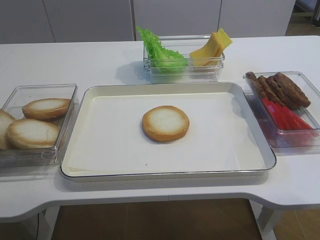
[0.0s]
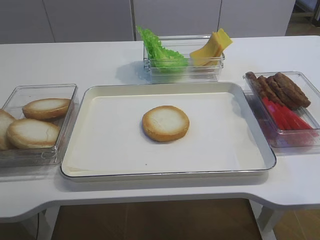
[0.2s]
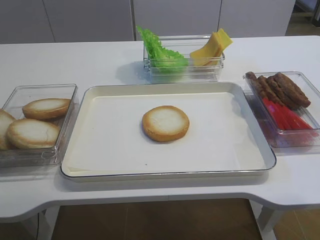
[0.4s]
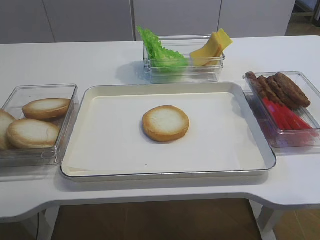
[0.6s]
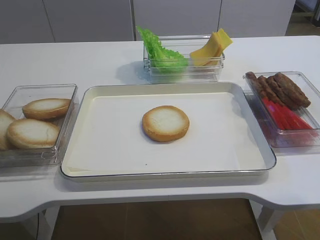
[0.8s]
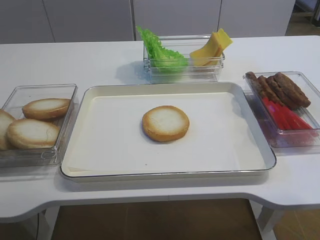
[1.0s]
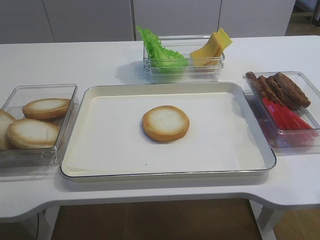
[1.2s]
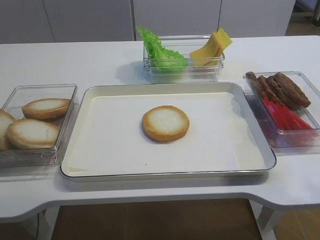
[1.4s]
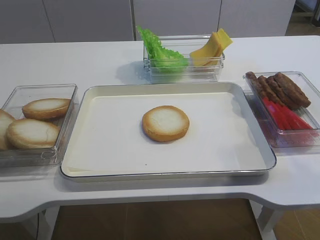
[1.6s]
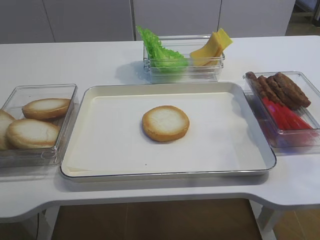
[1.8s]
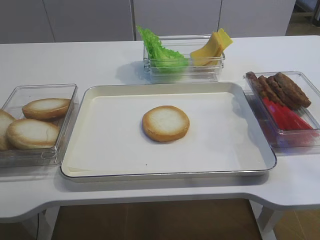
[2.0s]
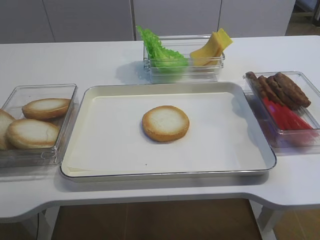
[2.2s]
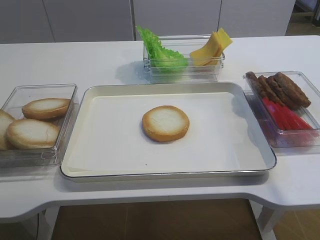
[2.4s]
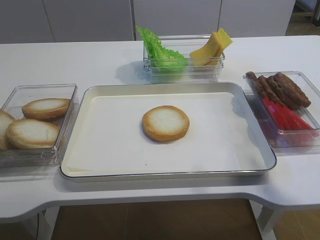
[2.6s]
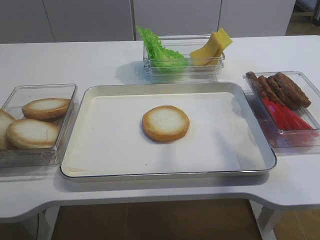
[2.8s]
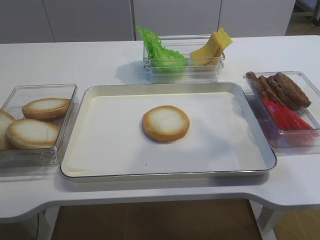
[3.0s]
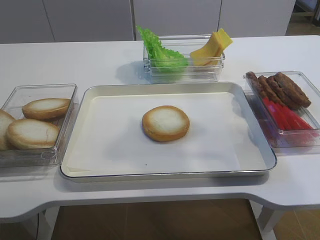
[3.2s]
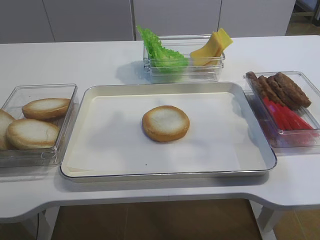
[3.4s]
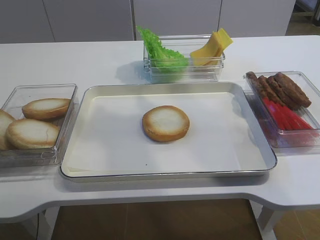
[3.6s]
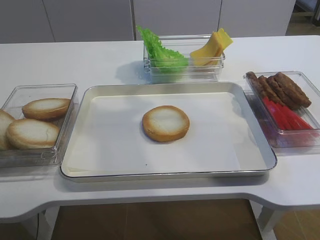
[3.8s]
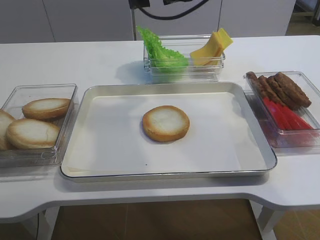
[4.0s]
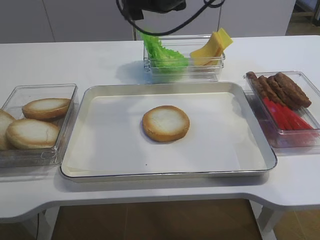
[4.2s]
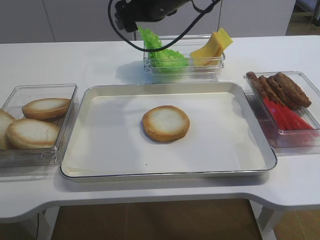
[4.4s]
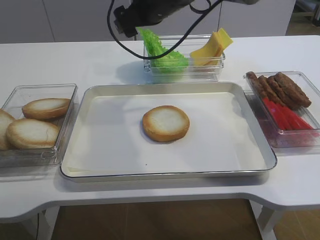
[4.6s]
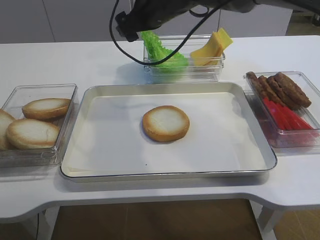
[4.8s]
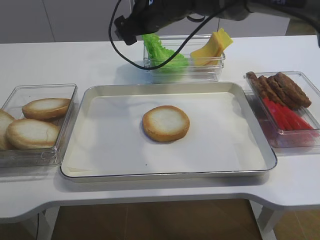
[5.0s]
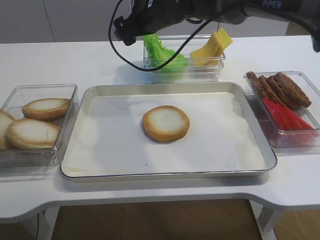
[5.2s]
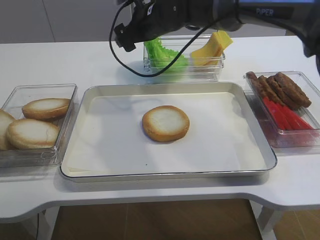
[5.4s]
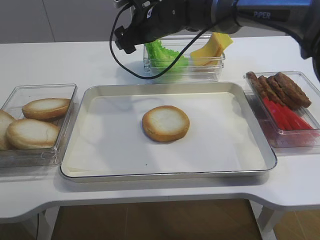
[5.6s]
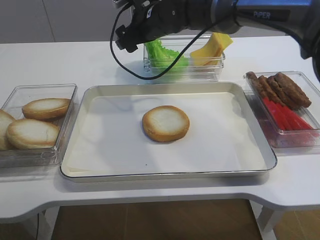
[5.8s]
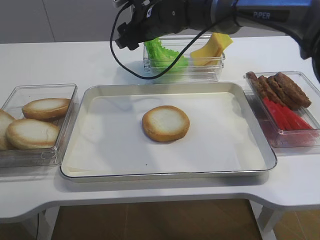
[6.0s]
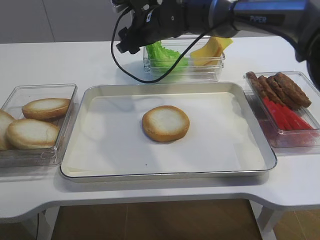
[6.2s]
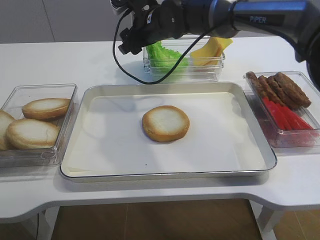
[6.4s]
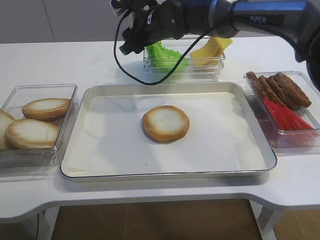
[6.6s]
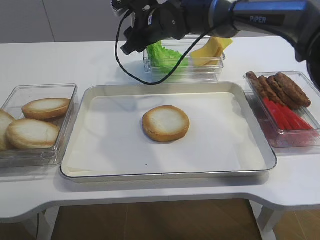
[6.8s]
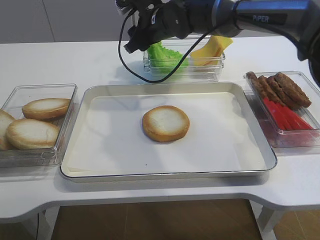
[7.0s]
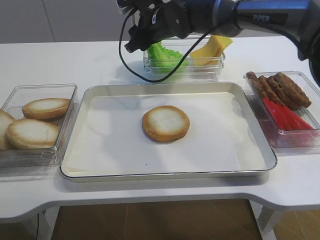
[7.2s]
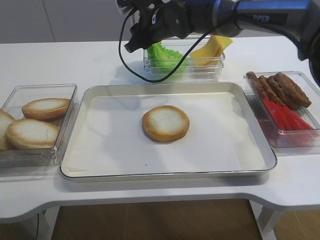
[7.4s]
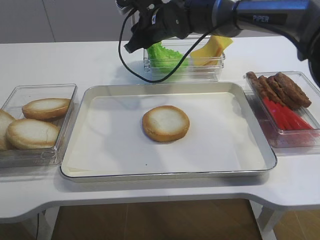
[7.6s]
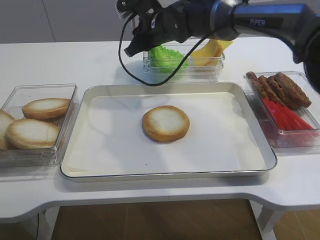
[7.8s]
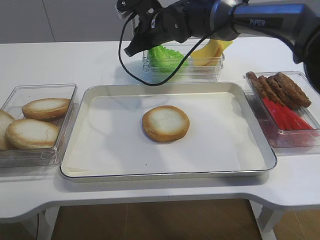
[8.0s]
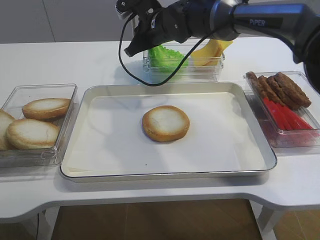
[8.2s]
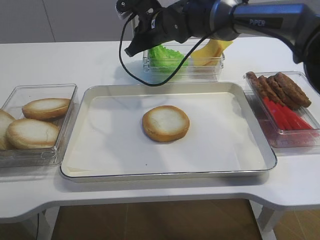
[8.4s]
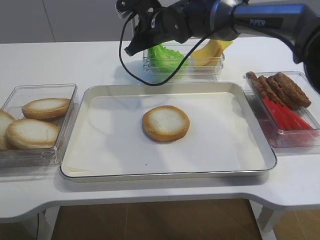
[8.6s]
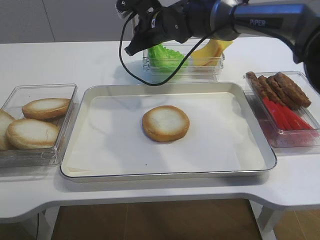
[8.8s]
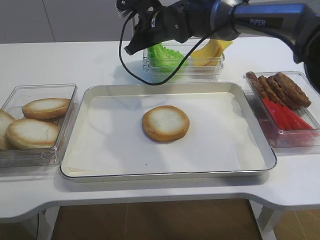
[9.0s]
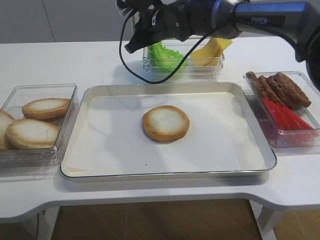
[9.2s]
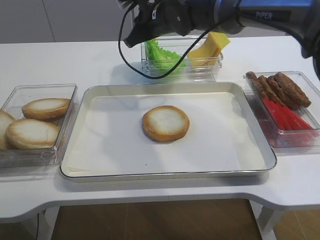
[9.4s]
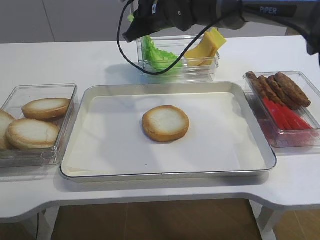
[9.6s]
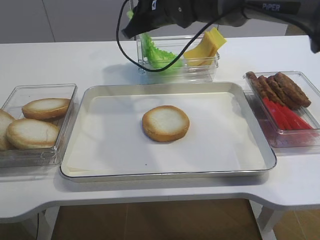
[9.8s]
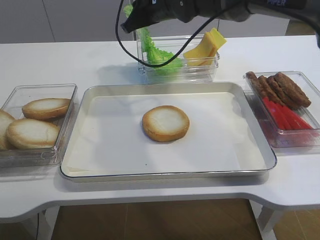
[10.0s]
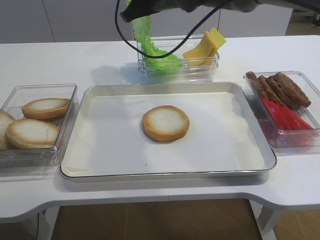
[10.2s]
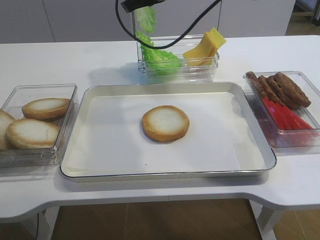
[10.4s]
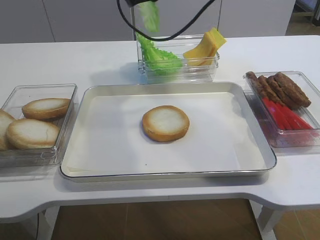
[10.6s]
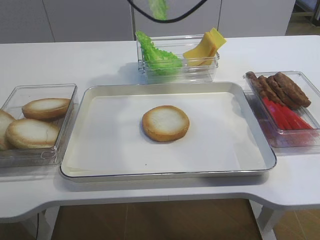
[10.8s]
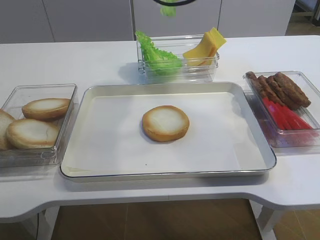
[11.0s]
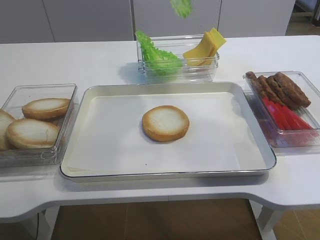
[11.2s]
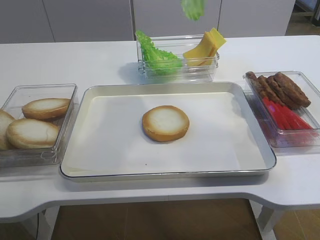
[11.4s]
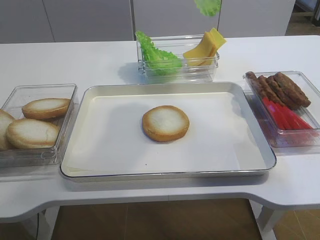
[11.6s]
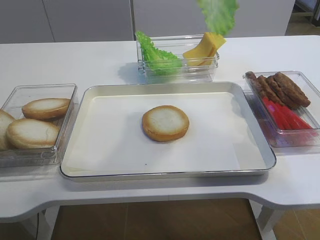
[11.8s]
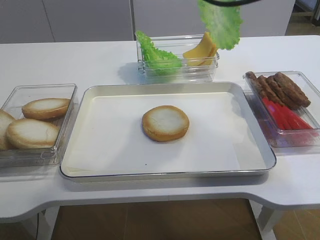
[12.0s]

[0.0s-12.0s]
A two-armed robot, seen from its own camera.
Step, 0.0s to 10.6s: Pick up the lettuce leaf with the right gripper.
1.6s to 3.0s: The right gripper moves forward, approximately 30 cm.
3.0s to 4.4s: The right gripper is displaced to the left, downward and forward by about 25 cm.
4.4s to 6.0s: The right gripper moves downward, roughly 5 cm.
6.0s to 7.6s: The right gripper closes its fingers.
7.6s to 9.0s: Both grippers stay put.
9.0s to 10.4s: The right gripper goes some 10 cm upward.
10.4s to 12.0s: The right gripper goes about 20 cm backward, upward and to the right.

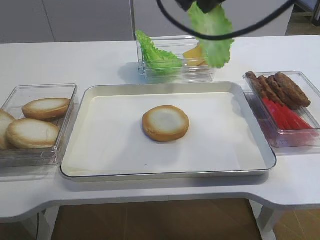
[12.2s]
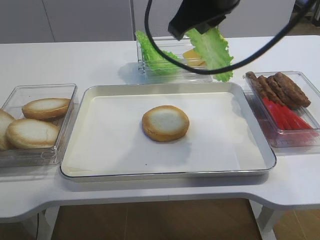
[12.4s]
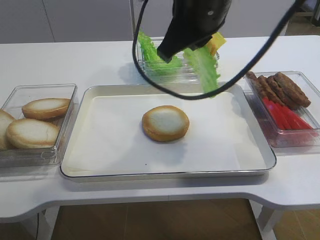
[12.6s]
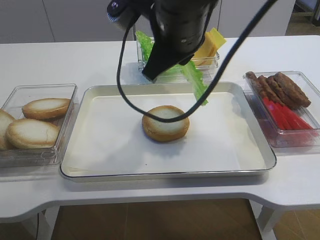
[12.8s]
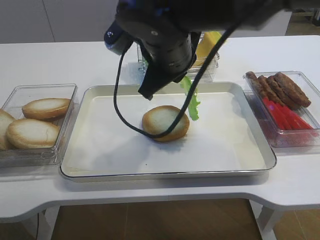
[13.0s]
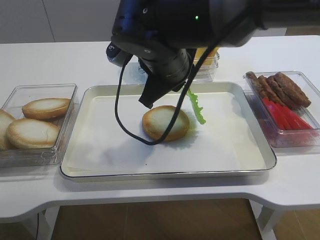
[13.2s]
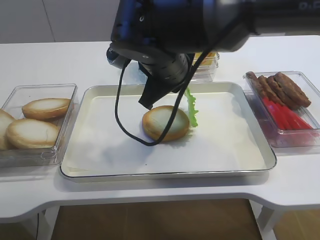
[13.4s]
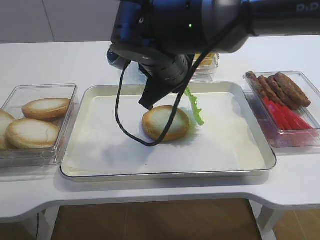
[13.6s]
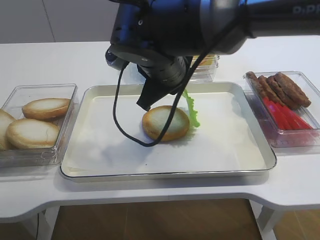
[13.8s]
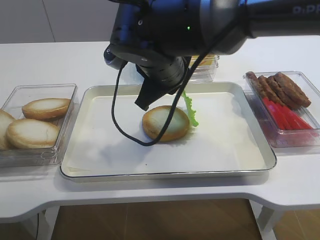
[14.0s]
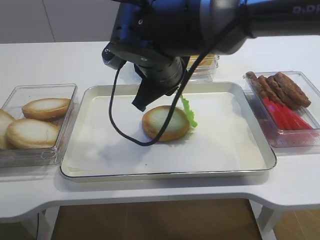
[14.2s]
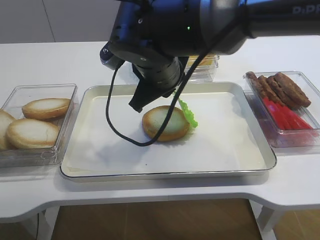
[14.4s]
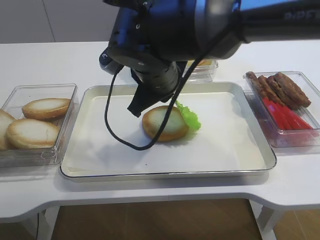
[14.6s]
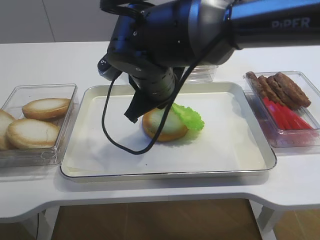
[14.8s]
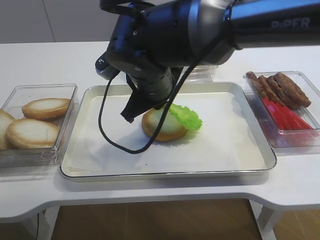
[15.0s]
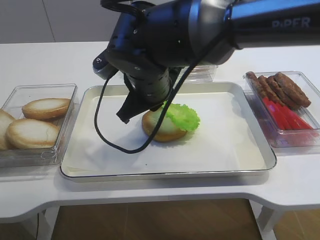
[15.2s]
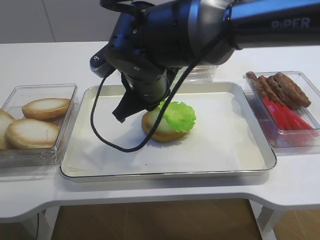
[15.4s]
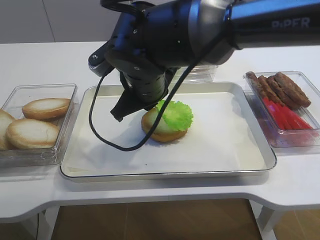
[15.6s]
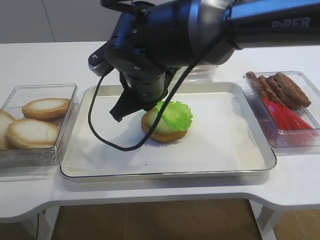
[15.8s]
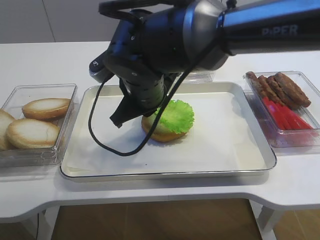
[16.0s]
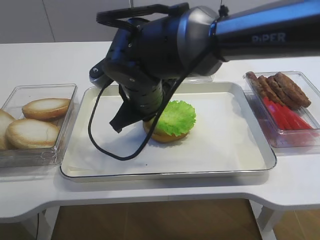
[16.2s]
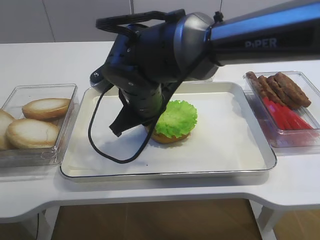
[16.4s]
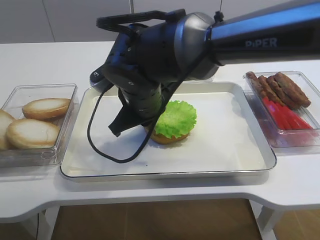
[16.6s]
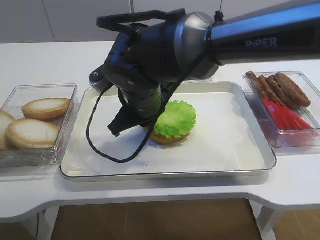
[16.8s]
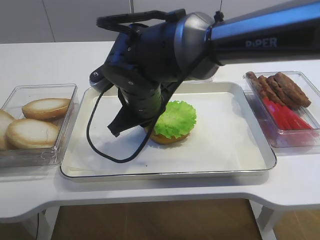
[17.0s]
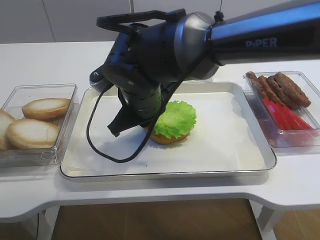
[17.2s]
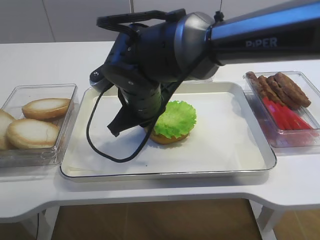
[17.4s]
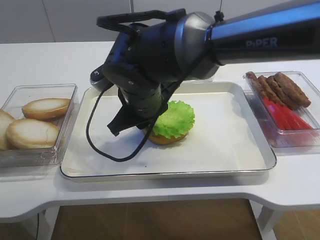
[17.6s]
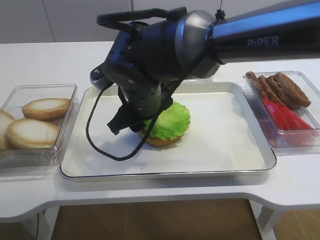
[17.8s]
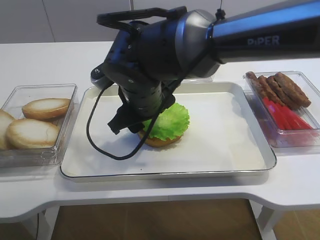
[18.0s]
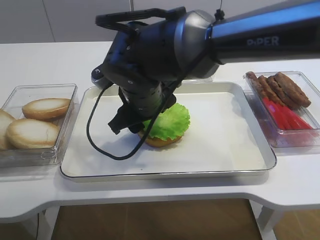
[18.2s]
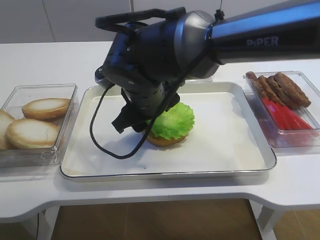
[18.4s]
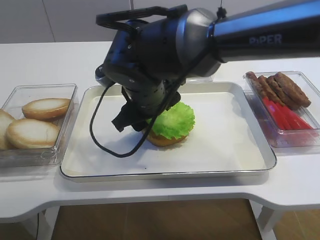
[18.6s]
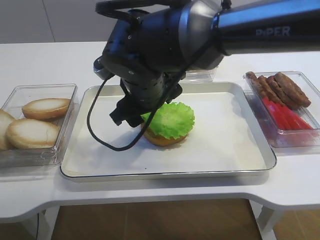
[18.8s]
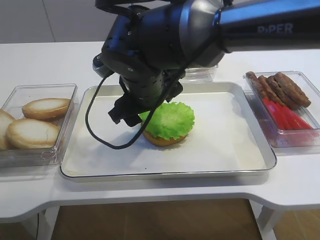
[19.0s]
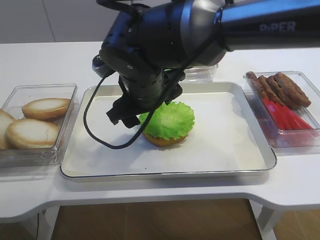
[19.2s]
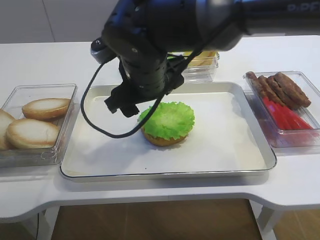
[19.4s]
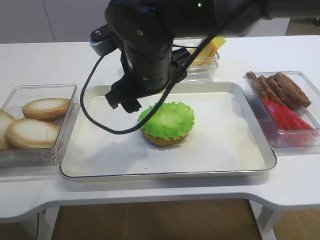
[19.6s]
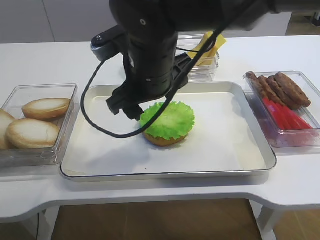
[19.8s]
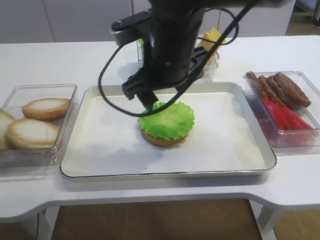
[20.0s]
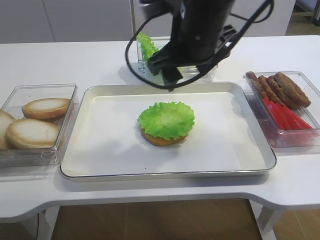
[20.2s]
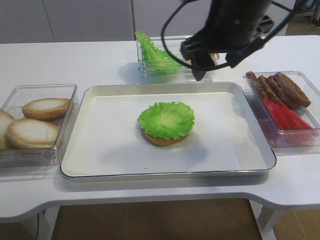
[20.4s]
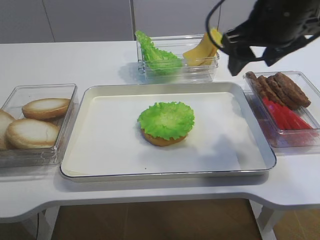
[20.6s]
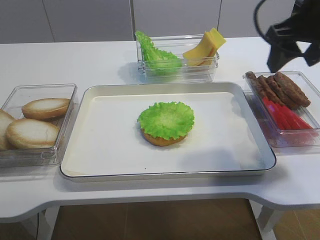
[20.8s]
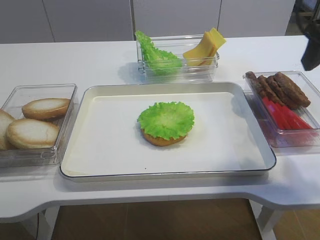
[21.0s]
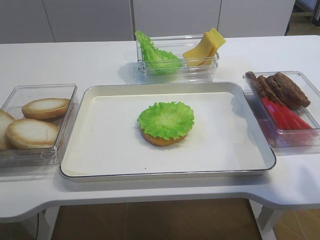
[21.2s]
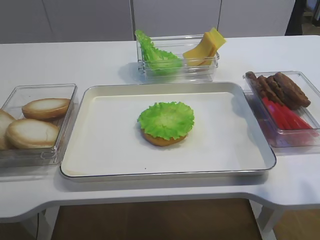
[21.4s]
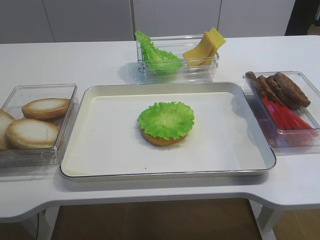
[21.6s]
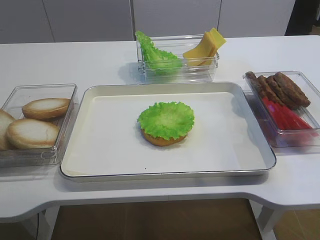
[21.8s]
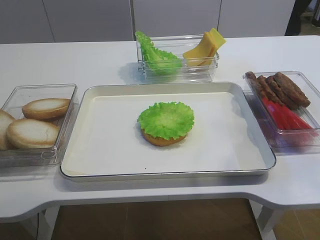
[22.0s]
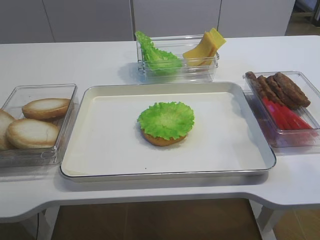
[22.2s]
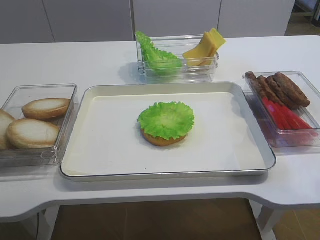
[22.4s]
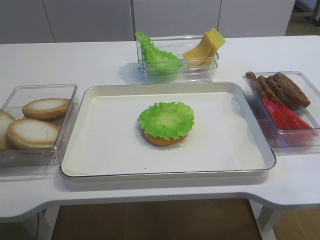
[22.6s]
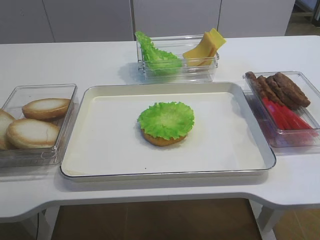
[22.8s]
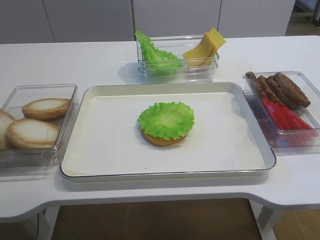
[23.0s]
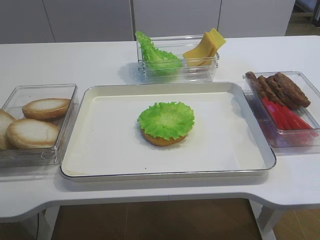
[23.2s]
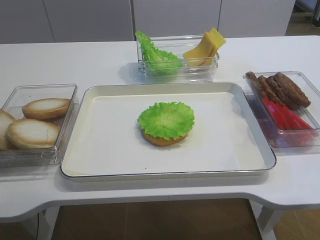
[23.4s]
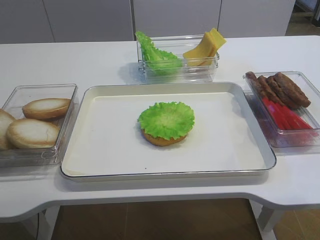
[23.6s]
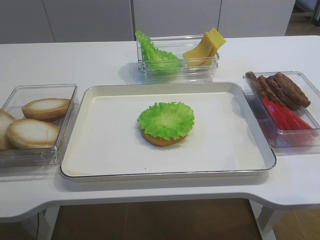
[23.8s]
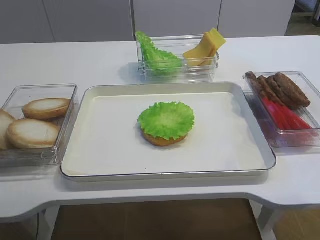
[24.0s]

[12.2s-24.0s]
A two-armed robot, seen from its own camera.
Step, 12.2s to 19.2s: Place the lettuce leaf on the bread slice with the right gripper.
12.2s to 13.6s: The right gripper heads downward and to the left, covering approximately 15 cm.
13.6s to 16.6s: The grippers move only a little.
16.6s to 18.2s: The right gripper opens its fingers.
18.2s to 19.6s: The right gripper heads upward, covering roughly 5 cm.
19.6s to 21.0s: The right gripper is displaced to the right by roughly 25 cm.
21.0s to 22.6s: The right gripper shifts some 30 cm backward.
